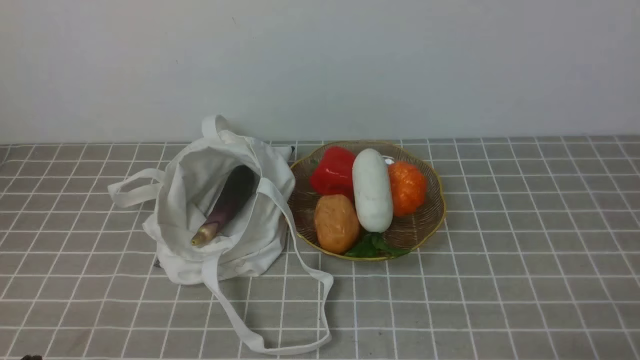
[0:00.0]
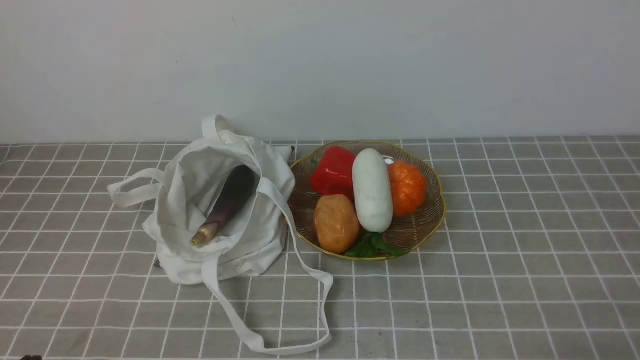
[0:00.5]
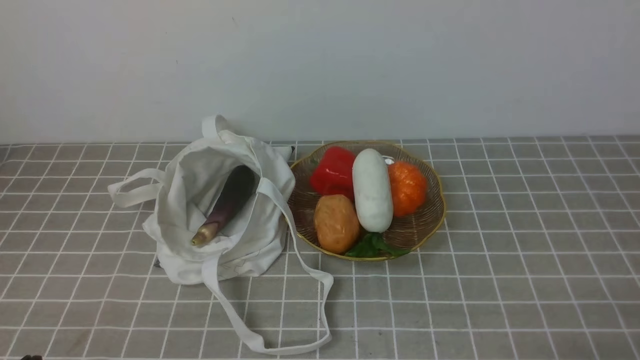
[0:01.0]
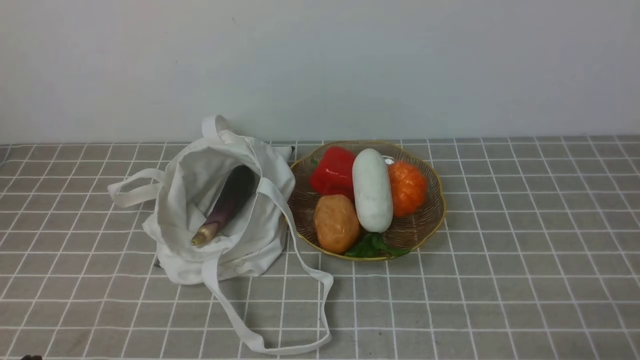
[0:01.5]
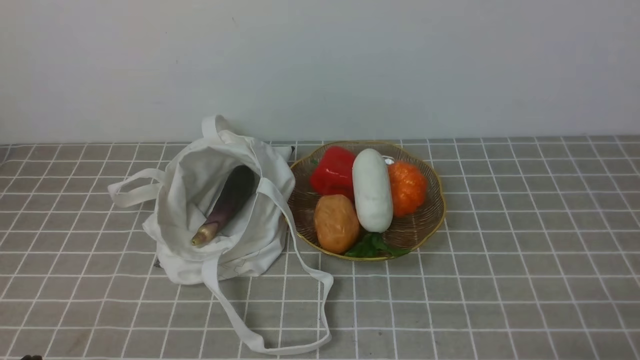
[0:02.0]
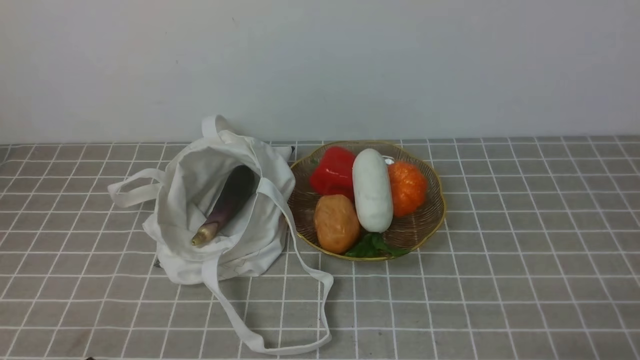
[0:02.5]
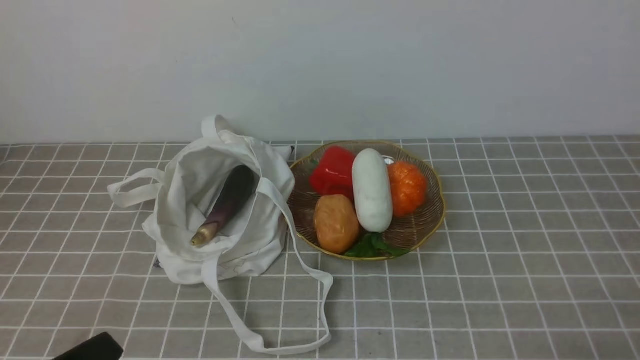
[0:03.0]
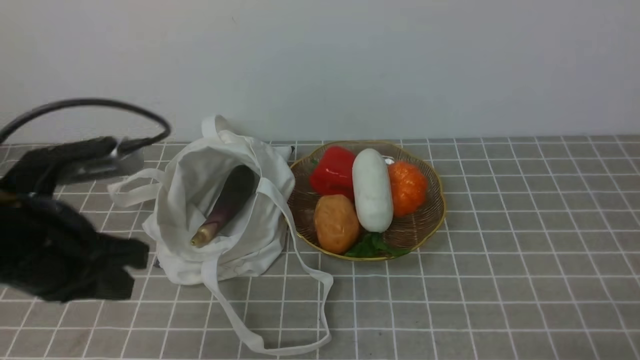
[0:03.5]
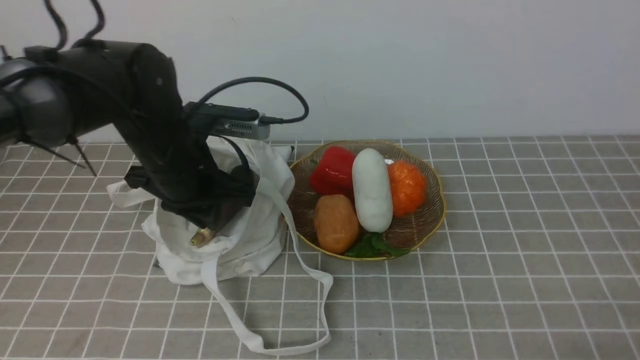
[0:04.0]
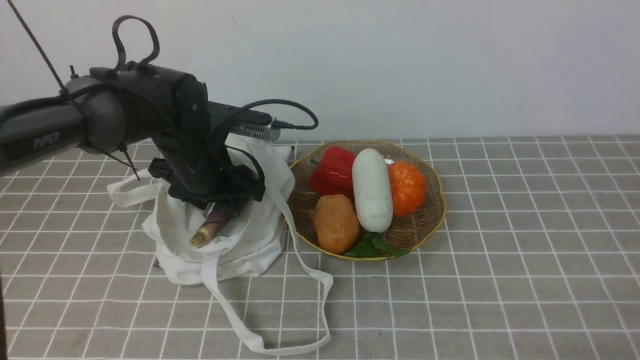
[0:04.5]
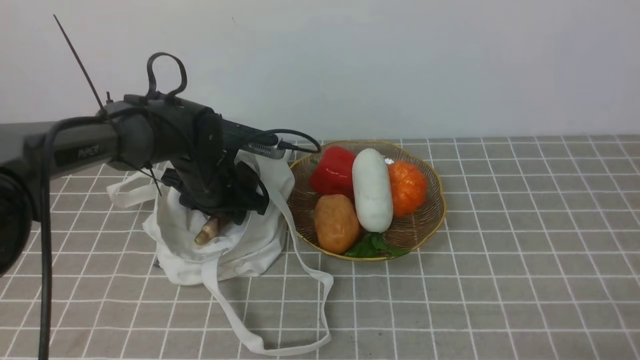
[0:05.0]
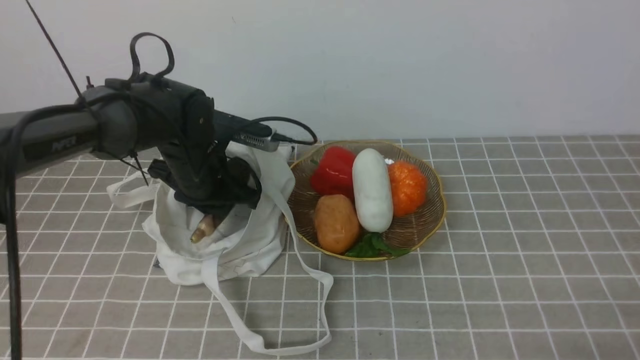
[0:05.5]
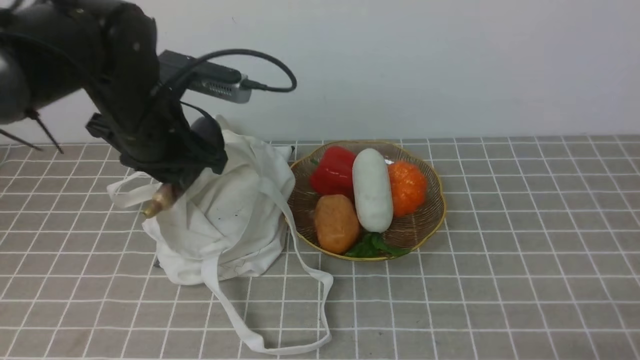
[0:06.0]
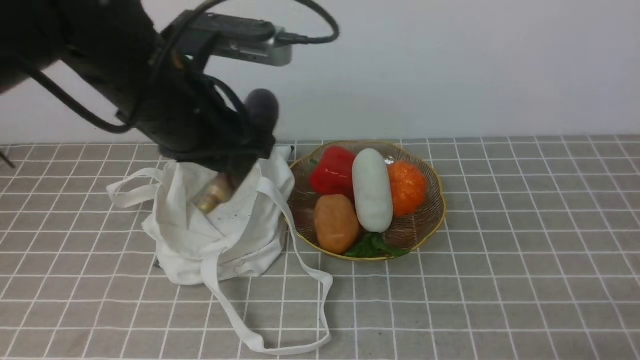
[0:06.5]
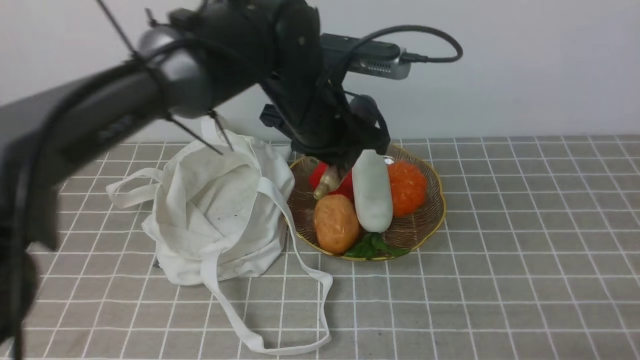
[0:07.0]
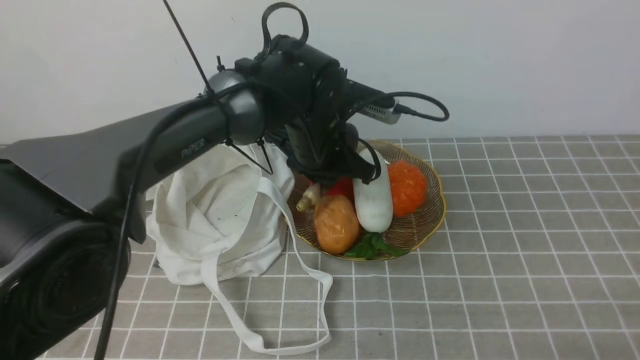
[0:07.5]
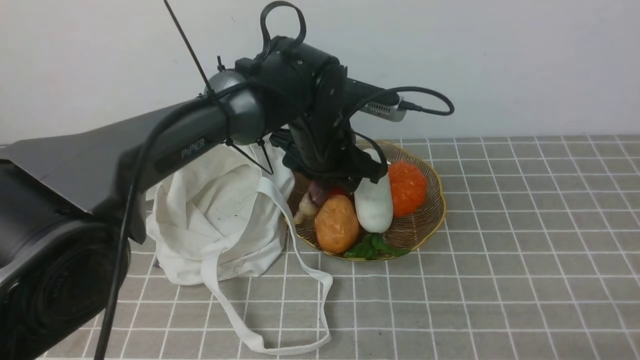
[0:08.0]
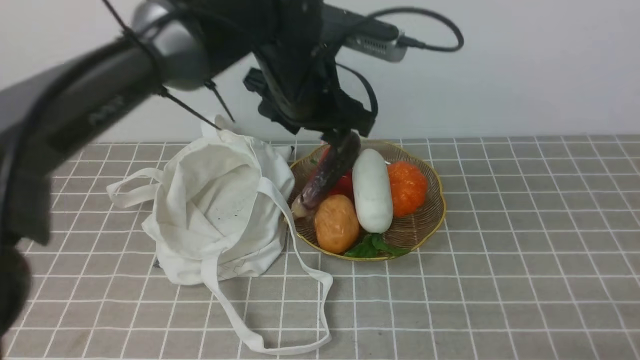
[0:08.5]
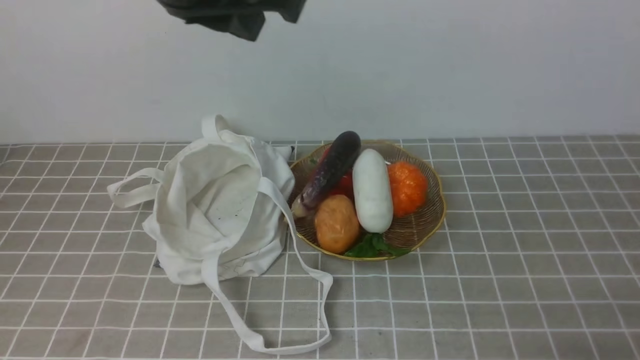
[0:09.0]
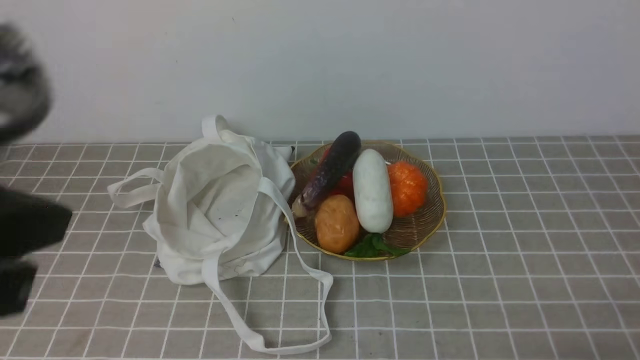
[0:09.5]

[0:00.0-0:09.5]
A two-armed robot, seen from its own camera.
Task of the whole recording: take vegetables from bag on grey coffee tablecloth place on plate.
Step, 0:00.0 to 0:05.0: Grasp the eggplant with left gripper.
Step, 0:05.5 to 0:08.5: Place the eggplant on the plate with left gripper.
0:02.0 to 0:04.0: The left gripper shifts approximately 30 cm forward.
0:04.0 to 0:05.5: The left gripper goes approximately 10 cm downward and forward, and opens, then closes once more.
0:05.5 to 0:07.5: The left gripper travels to the right by roughly 15 cm, and goes upward and returns, some 15 cm each way.
0:07.5 to 0:09.5: The left gripper shifts about 40 cm backward, upward and to the left, and opens, then closes once more.

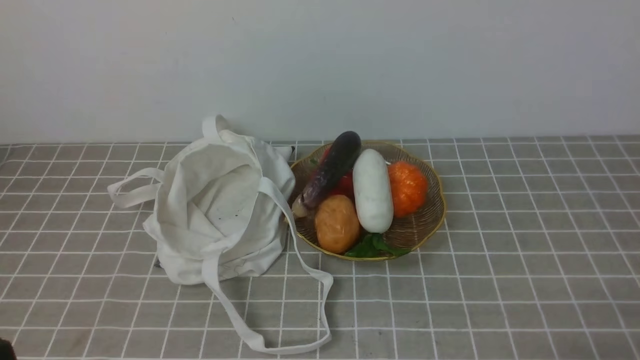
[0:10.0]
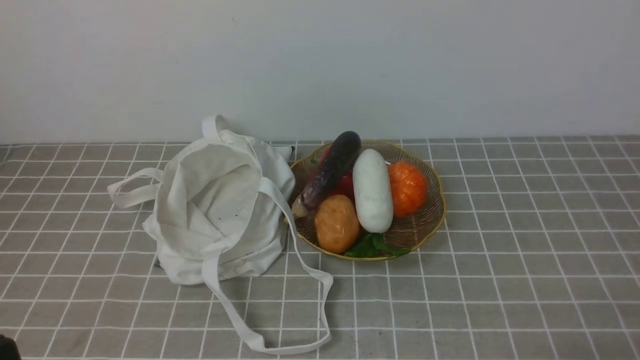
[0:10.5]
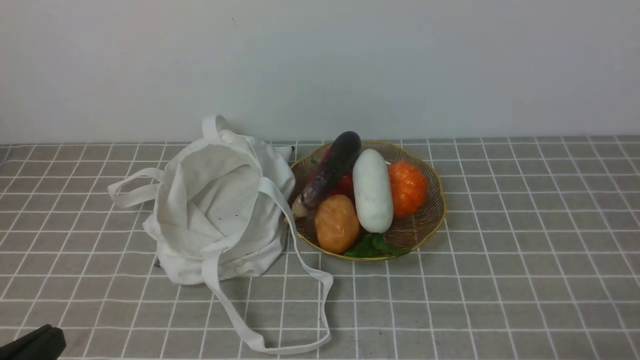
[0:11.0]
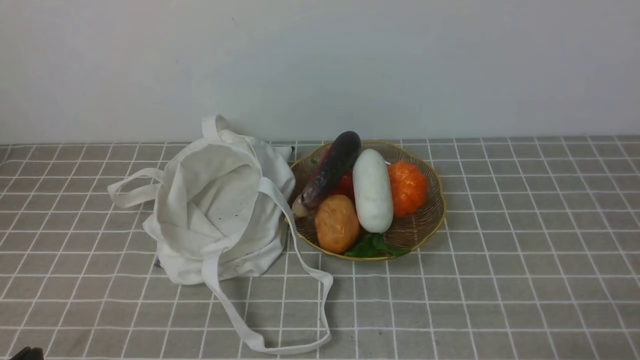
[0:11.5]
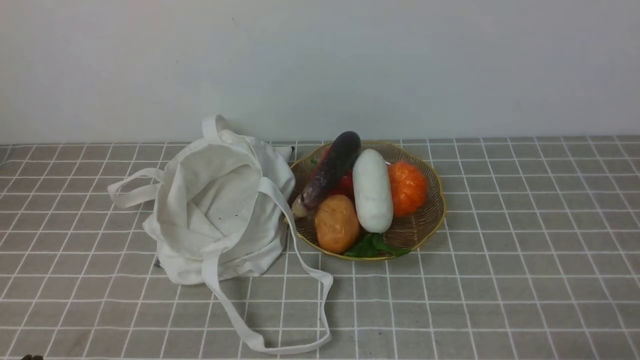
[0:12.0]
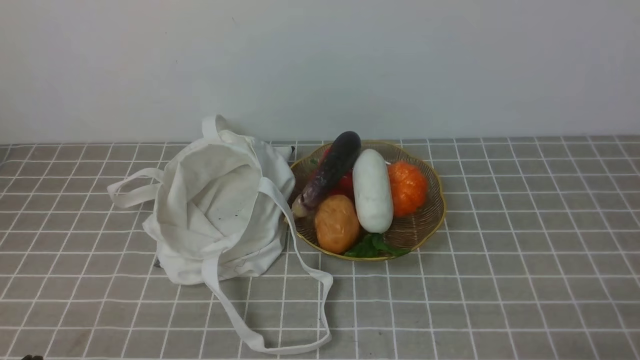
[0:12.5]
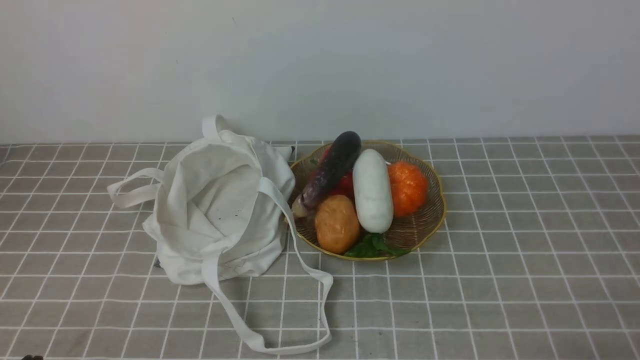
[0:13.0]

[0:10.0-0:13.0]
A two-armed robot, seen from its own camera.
Task of the whole recording: take vegetables from bag on grey coffee tablecloth place on plate.
0:11.5 to 0:13.0: Both grippers stay put.
